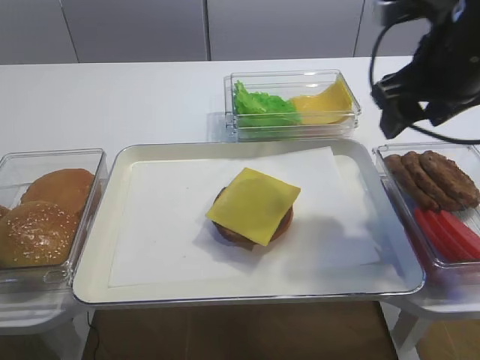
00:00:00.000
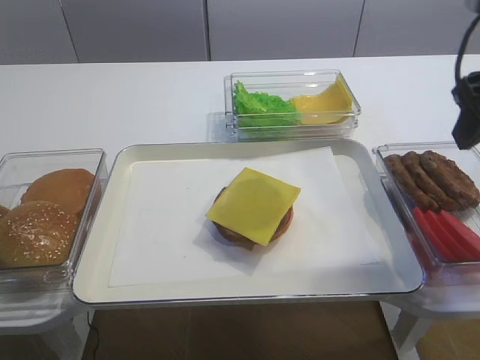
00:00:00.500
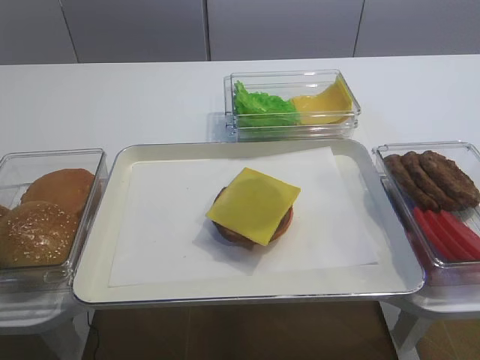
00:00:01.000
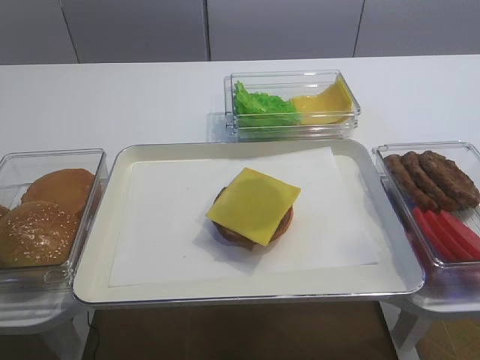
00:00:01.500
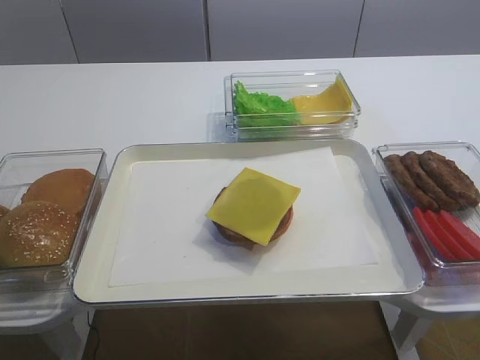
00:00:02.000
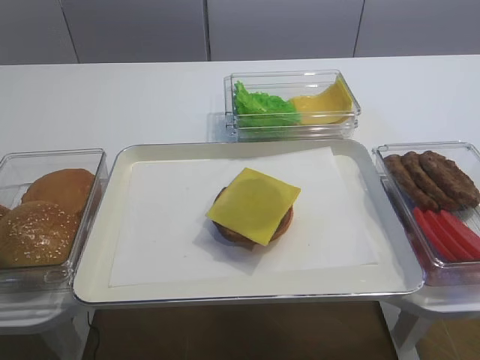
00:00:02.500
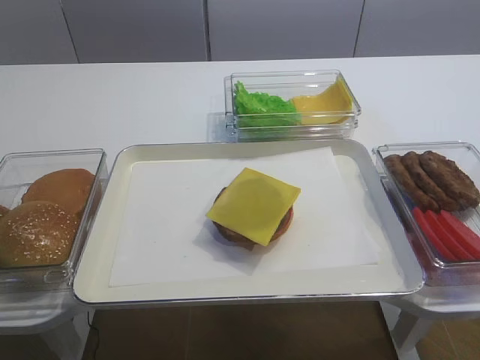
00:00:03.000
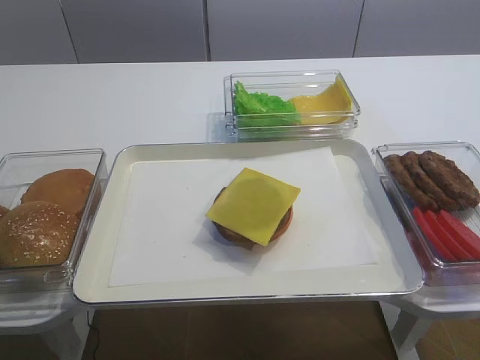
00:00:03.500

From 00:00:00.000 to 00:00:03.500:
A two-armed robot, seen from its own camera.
From 00:00:00.000 to 00:00:02.000: The right gripper heads backward, covering about 30 cm.
